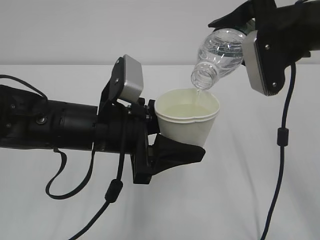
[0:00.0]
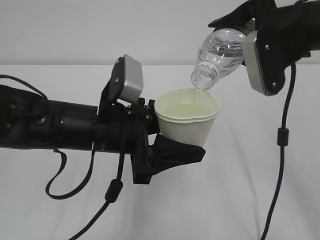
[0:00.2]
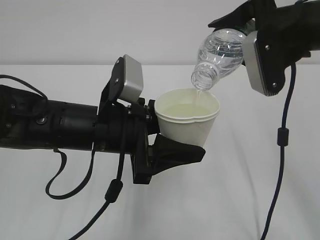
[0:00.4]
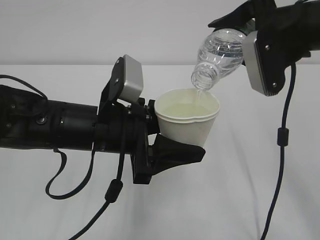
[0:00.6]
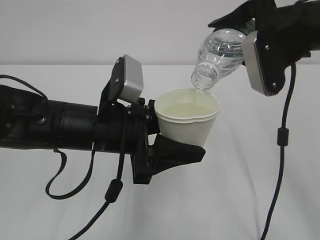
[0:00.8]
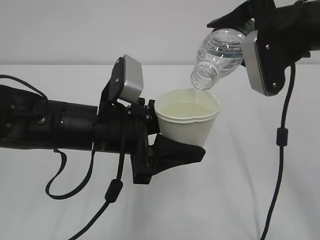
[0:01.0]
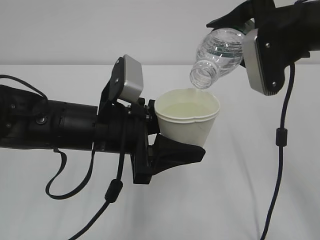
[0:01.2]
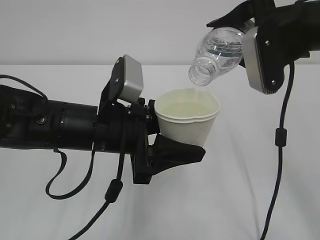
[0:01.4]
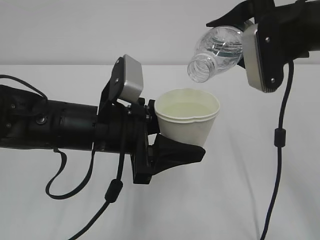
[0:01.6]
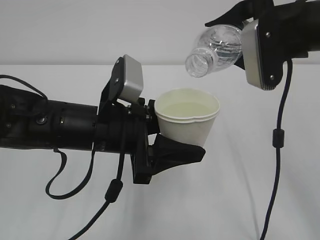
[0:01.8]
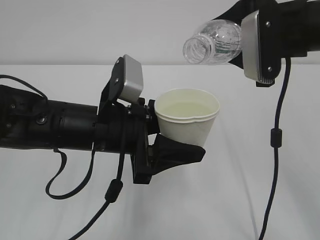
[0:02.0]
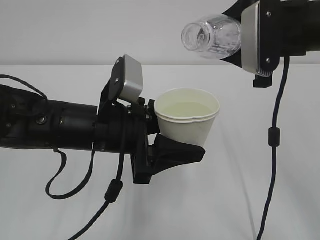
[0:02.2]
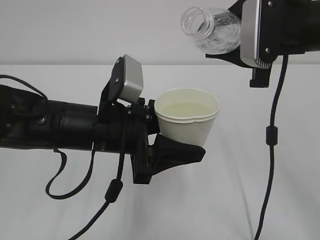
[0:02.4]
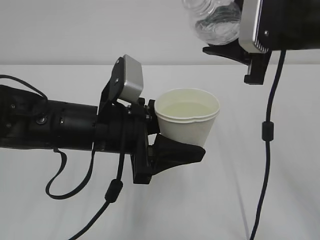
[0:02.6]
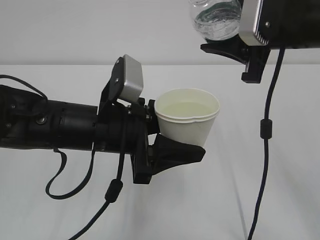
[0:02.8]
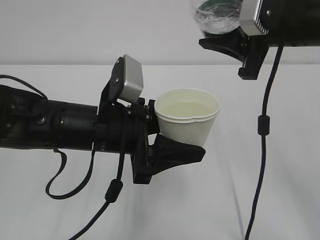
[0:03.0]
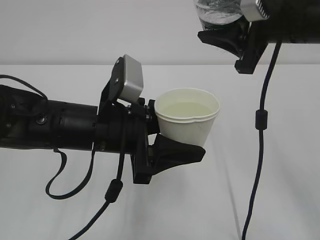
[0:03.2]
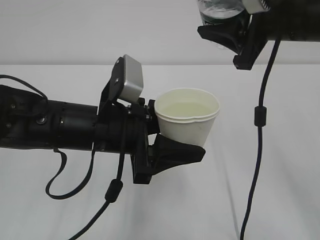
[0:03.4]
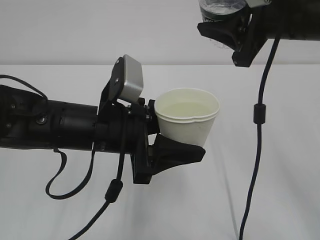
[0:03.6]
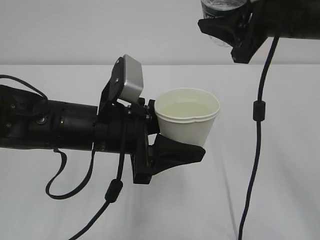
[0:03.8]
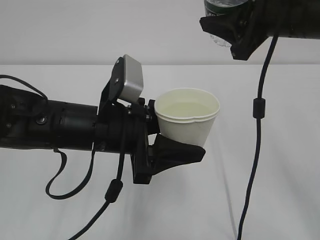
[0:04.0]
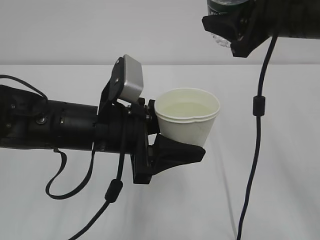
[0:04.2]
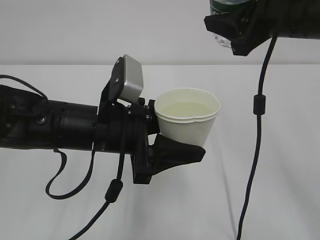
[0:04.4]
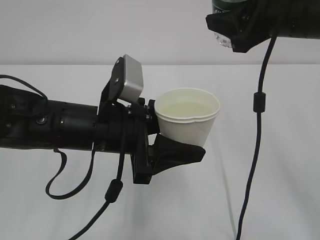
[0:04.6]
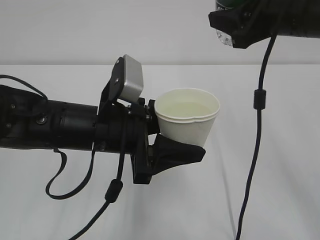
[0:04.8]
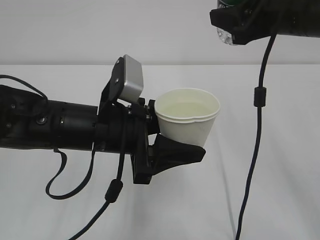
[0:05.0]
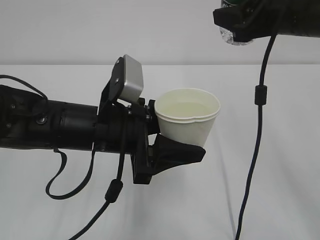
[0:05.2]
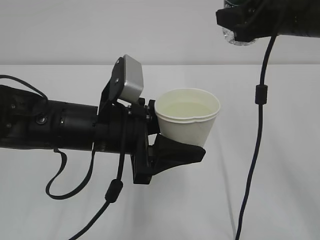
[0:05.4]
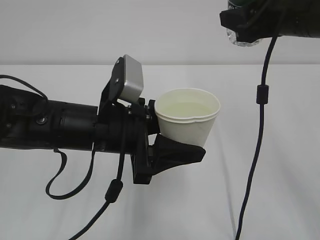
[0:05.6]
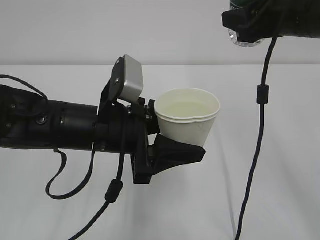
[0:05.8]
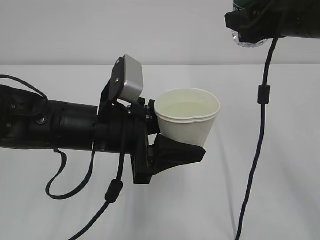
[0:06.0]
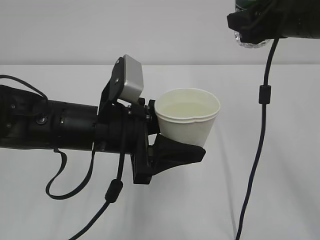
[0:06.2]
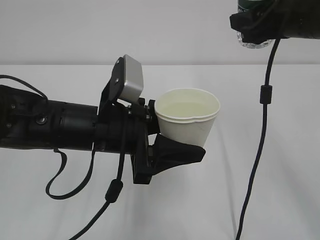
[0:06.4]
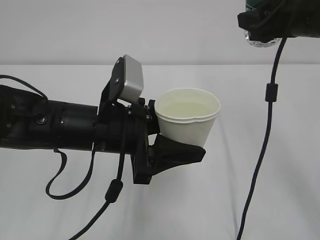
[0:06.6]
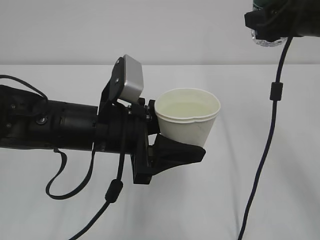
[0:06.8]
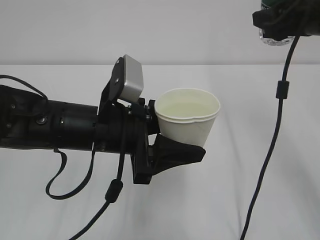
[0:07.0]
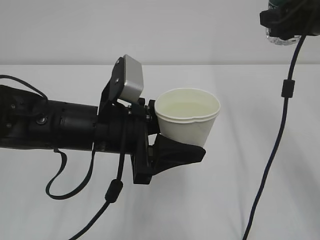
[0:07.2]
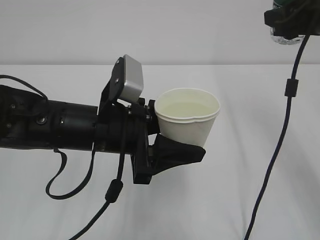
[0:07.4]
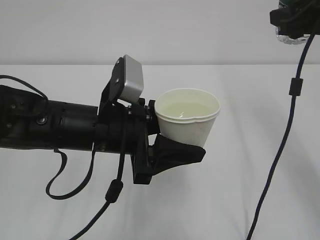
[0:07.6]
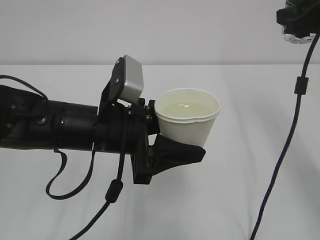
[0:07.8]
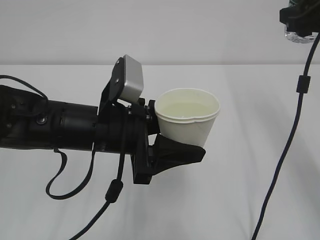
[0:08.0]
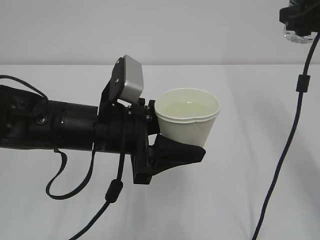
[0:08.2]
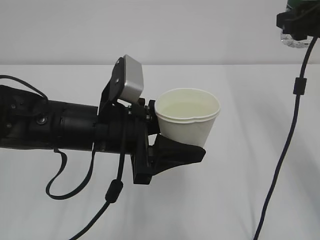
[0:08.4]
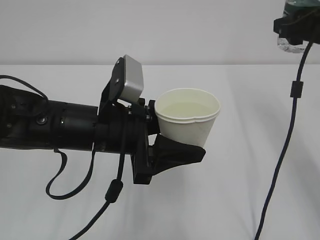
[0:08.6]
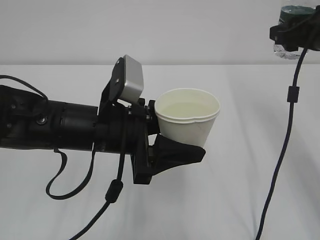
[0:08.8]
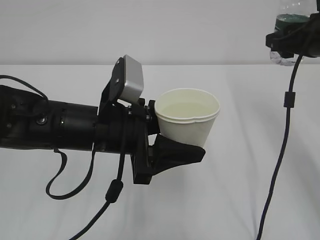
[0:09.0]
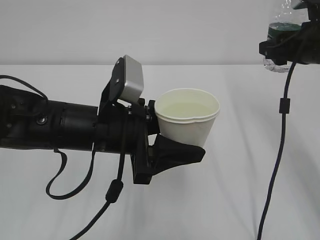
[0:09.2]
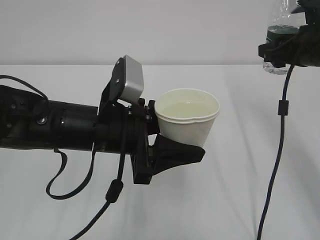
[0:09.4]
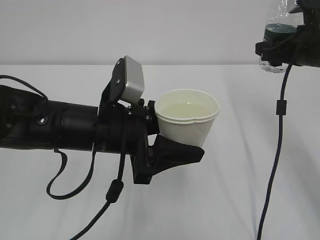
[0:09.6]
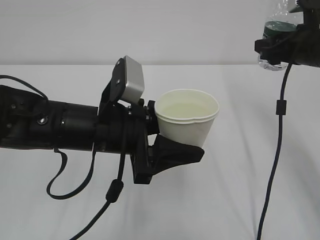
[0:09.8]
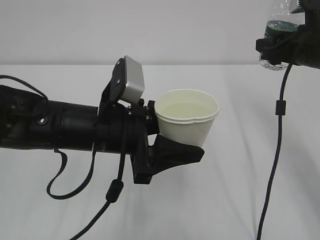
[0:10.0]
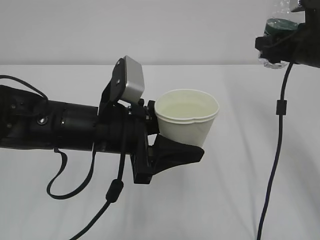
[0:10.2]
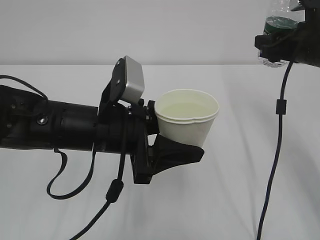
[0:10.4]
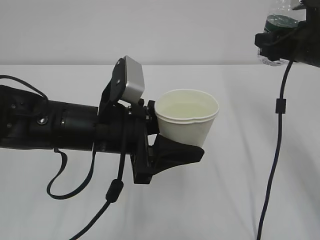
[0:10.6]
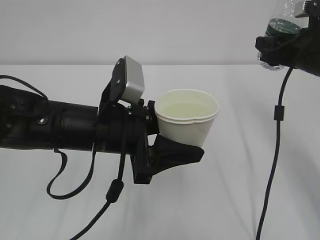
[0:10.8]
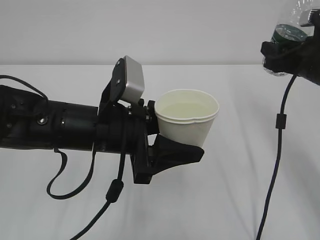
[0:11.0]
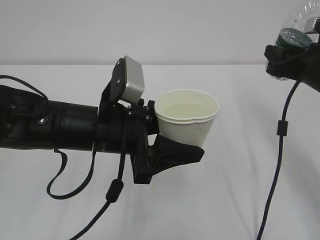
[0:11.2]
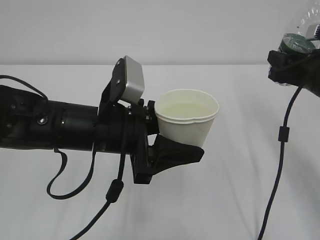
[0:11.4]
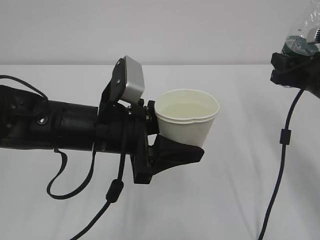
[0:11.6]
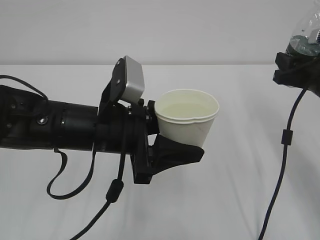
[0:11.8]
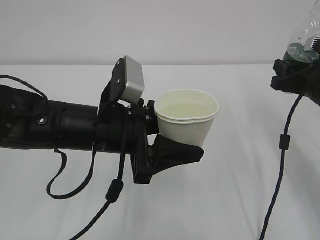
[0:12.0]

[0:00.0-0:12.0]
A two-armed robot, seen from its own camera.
0:00.0 to 0:01.6: The grippers move only a little.
0:04.4 to 0:06.0: The grippers move only a little.
0:06.0 to 0:07.6: The right gripper travels to the right by some 5 cm.
0:07.6 to 0:09.0: The right gripper moves roughly 5 cm.
0:09.0 to 0:10.4: The grippers stay close to where they were, moving slightly.
0:10.4 to 0:12.0: The right gripper moves downward, some 5 cm.

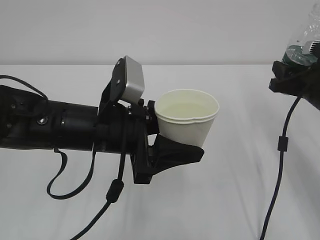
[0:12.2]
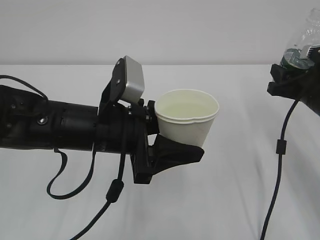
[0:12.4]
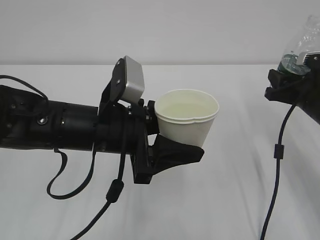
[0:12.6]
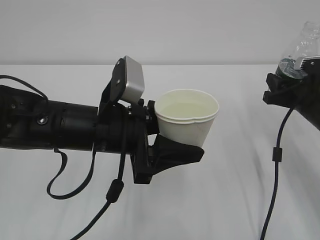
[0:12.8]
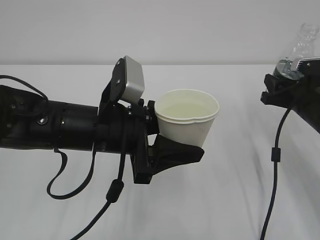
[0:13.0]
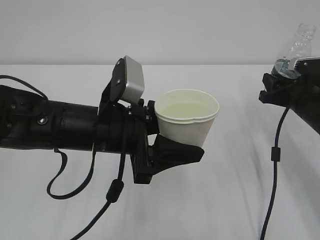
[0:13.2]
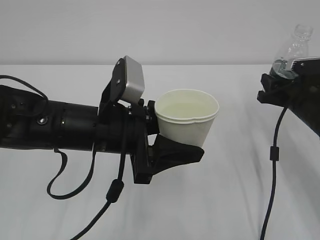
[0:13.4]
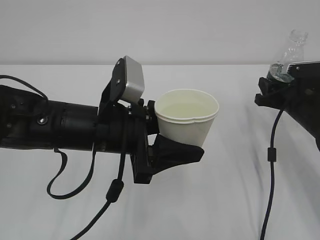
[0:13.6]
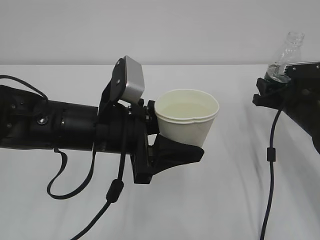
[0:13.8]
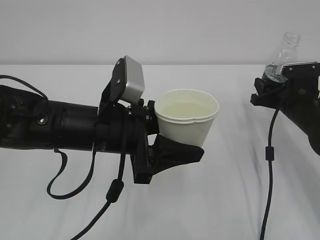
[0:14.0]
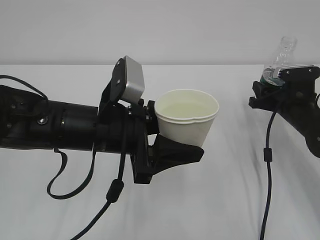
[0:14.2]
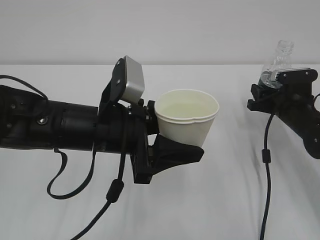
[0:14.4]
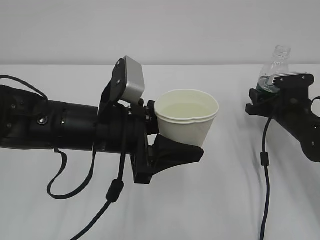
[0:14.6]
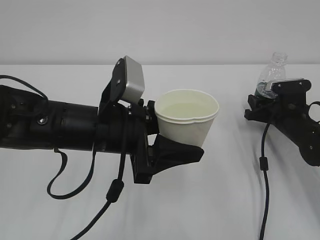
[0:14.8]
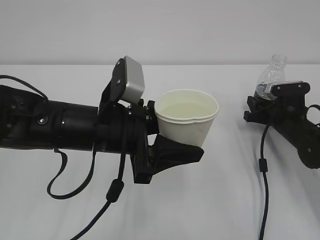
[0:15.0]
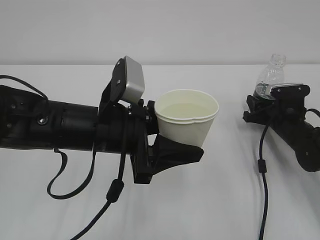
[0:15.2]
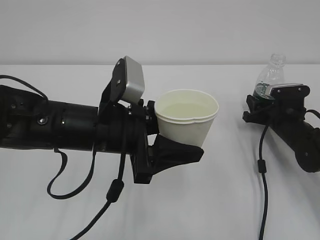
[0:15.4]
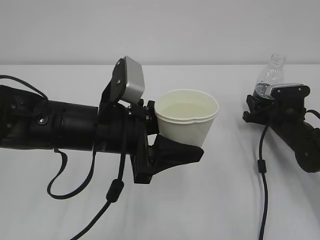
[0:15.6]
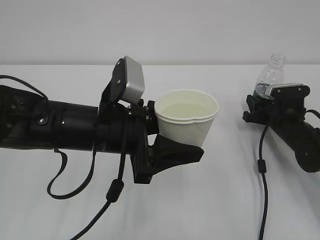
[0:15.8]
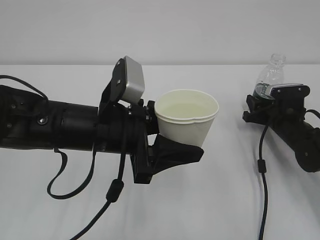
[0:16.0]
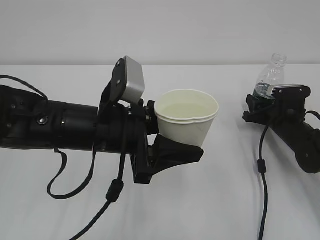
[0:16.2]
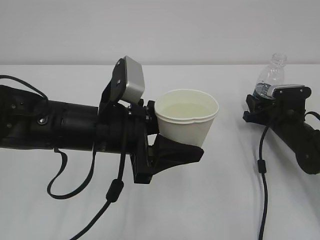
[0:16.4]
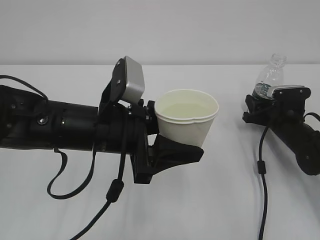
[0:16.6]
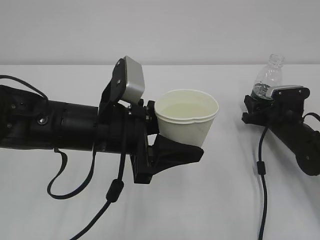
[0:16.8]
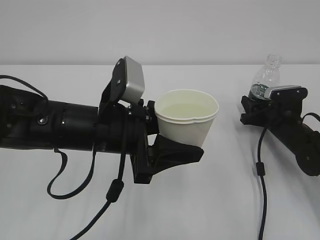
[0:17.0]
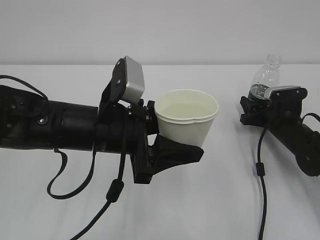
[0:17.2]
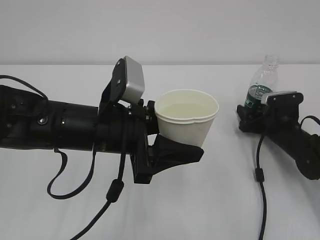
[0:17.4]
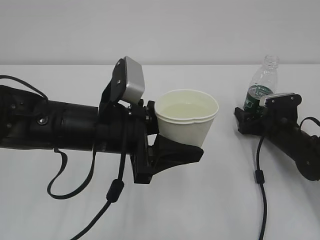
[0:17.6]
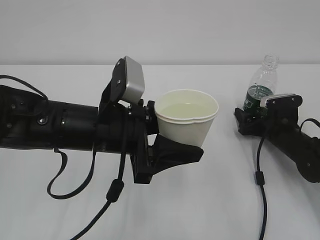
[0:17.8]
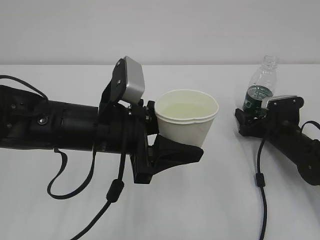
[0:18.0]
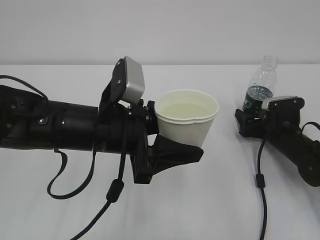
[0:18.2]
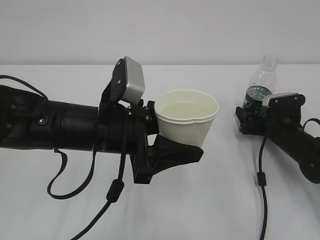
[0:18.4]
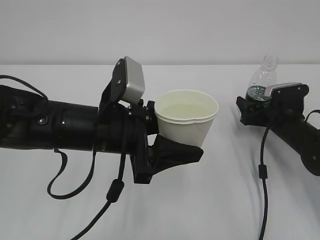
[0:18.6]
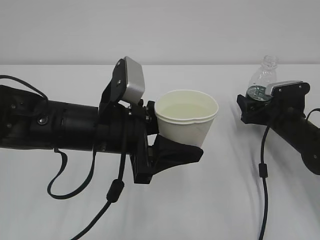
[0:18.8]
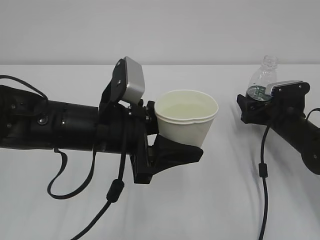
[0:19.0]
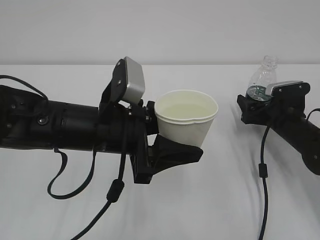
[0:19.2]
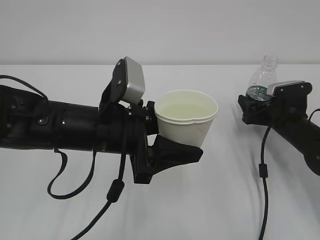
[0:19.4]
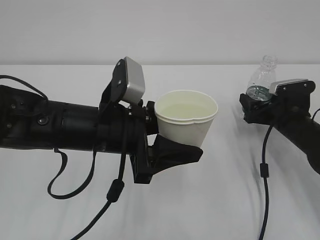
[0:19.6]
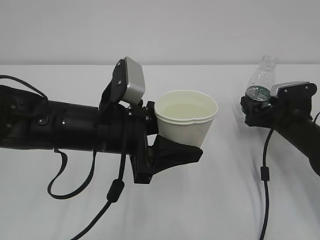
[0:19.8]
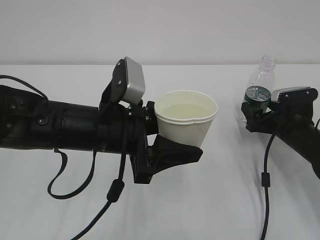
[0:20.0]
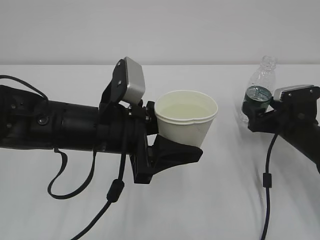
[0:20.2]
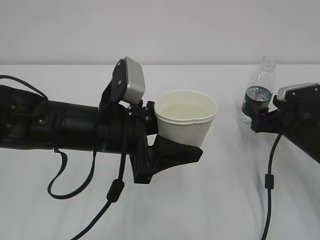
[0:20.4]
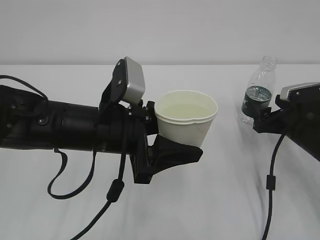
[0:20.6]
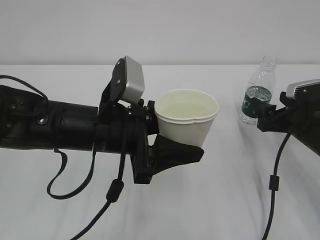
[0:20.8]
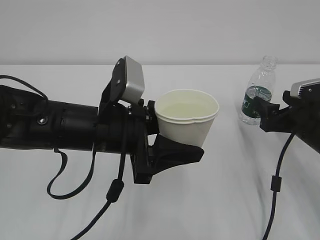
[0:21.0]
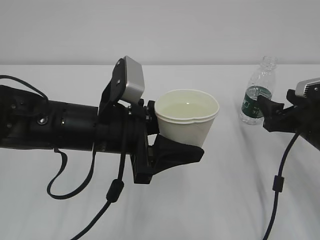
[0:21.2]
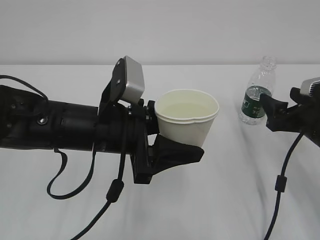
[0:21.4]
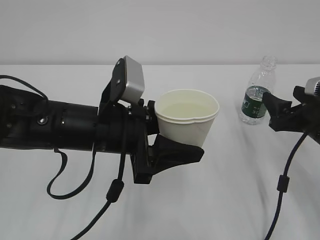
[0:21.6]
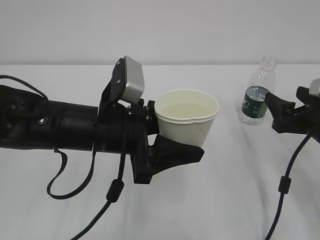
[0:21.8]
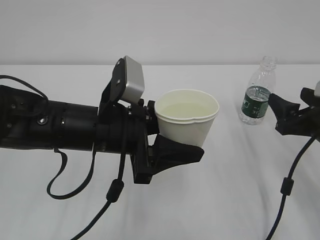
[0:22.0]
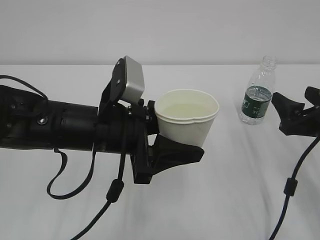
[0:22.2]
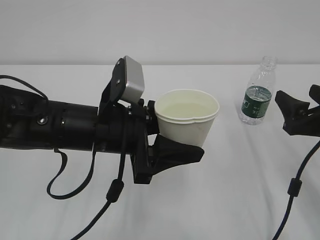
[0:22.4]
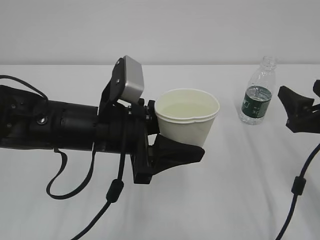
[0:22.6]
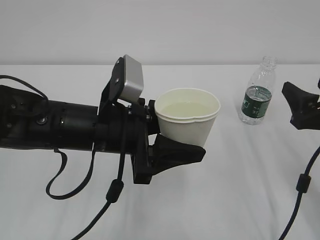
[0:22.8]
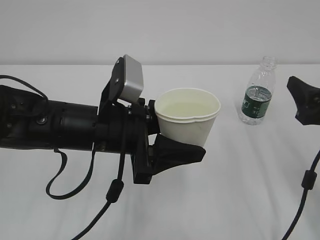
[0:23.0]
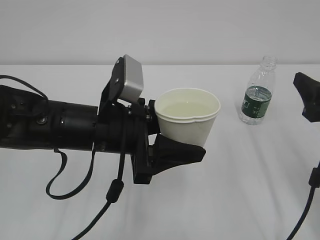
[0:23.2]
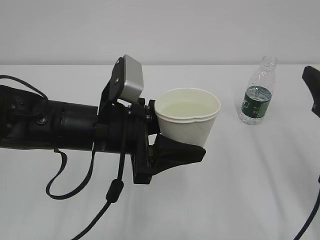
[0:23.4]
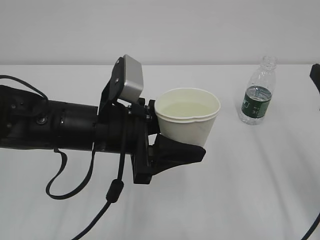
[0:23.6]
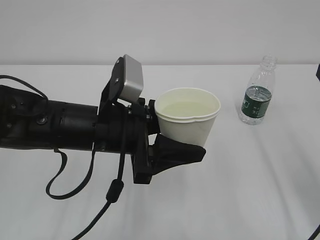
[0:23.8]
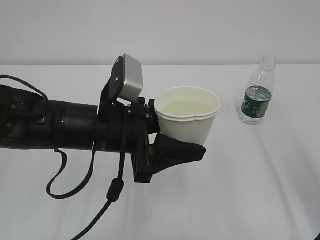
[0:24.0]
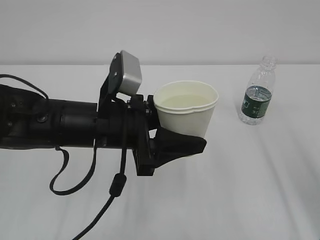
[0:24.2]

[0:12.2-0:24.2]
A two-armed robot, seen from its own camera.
0:12.2 to 0:13.8: The right gripper heads downward, covering about 5 cm.
0:13.8 to 0:15.2: The right gripper heads downward, covering approximately 5 cm.
0:15.2 to 0:16.6: Neither gripper changes place.
0:16.6 to 0:18.2: The right gripper opens.
0:18.2 to 0:19.8: There are only small adjustments of the grippers.
0:19.8 to 0:21.2: The right gripper travels backward and upward by roughly 10 cm.
0:21.2 to 0:22.6: The right gripper goes approximately 5 cm backward.
0:22.6 to 0:24.2: The right gripper goes about 10 cm upward and backward.
